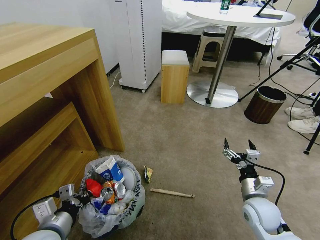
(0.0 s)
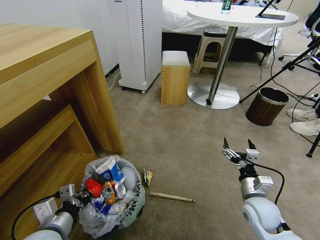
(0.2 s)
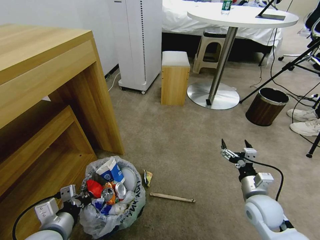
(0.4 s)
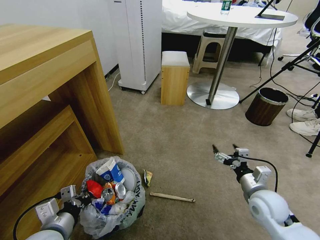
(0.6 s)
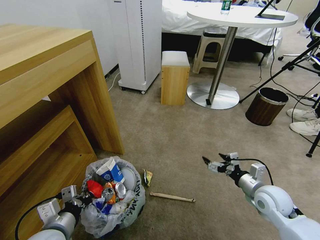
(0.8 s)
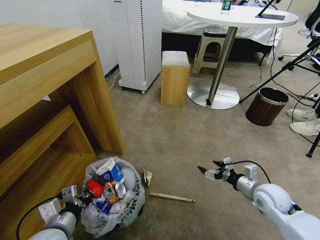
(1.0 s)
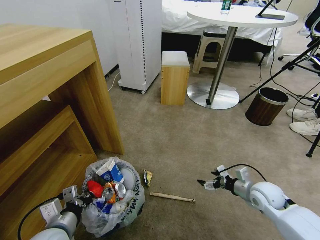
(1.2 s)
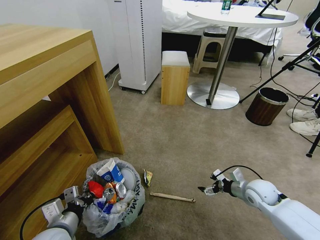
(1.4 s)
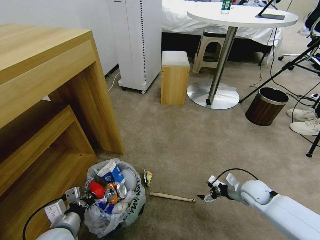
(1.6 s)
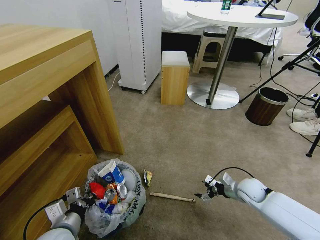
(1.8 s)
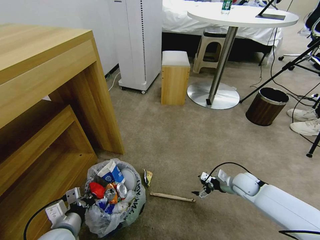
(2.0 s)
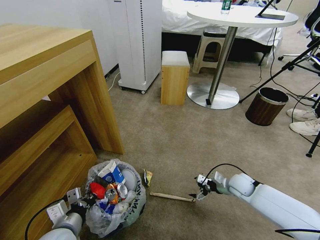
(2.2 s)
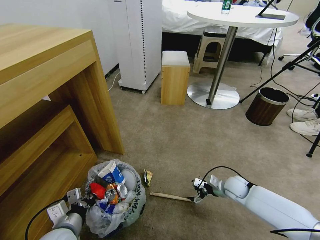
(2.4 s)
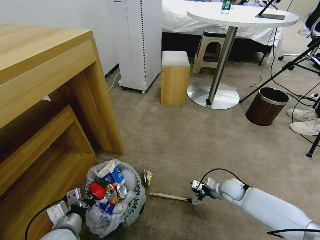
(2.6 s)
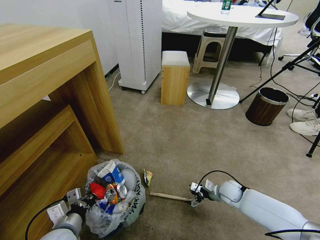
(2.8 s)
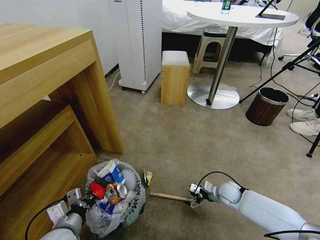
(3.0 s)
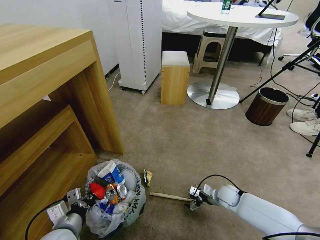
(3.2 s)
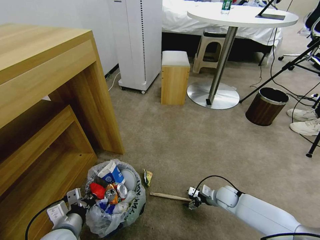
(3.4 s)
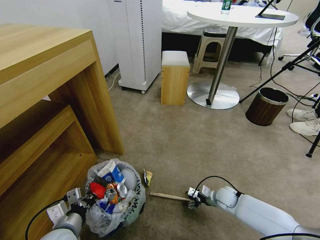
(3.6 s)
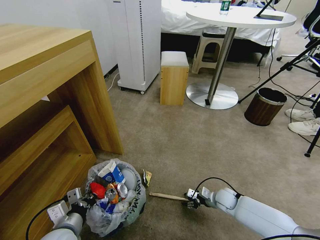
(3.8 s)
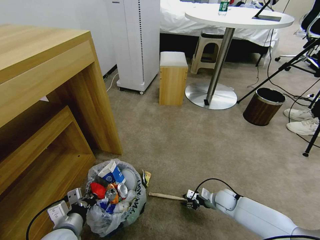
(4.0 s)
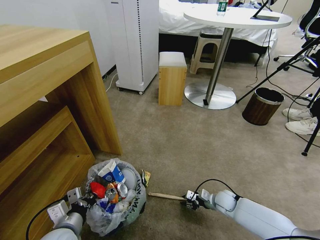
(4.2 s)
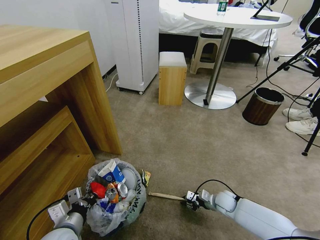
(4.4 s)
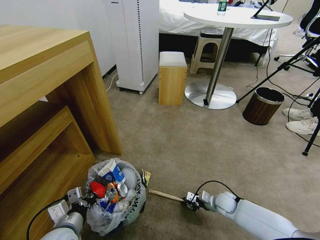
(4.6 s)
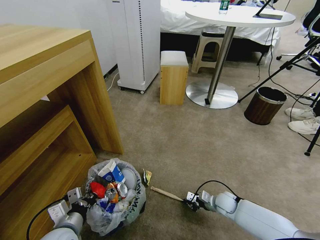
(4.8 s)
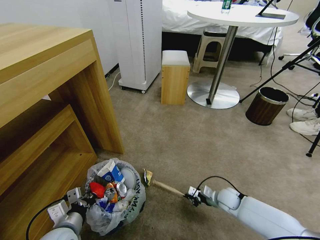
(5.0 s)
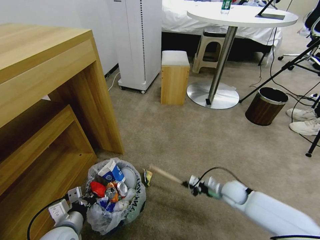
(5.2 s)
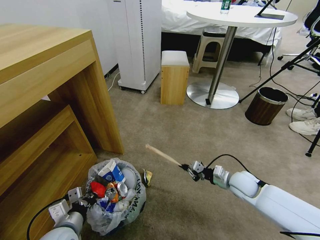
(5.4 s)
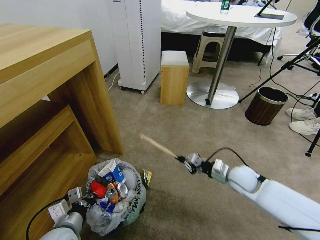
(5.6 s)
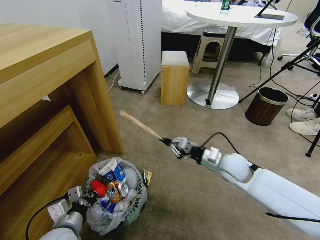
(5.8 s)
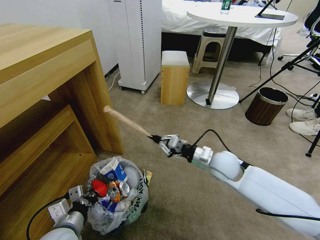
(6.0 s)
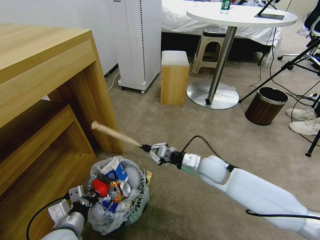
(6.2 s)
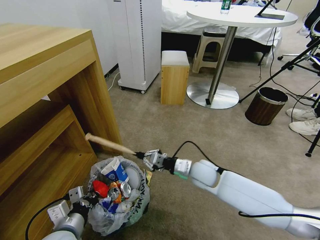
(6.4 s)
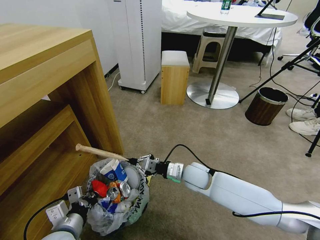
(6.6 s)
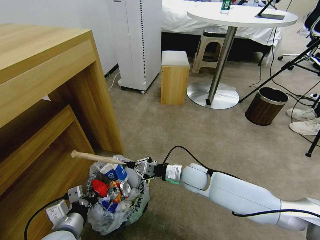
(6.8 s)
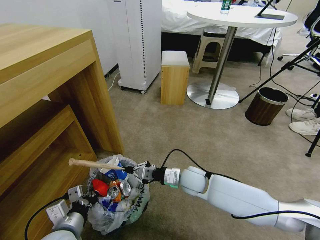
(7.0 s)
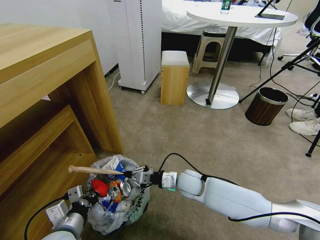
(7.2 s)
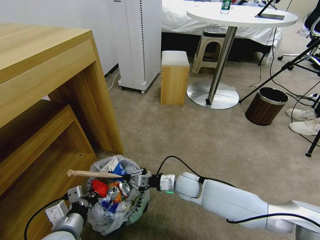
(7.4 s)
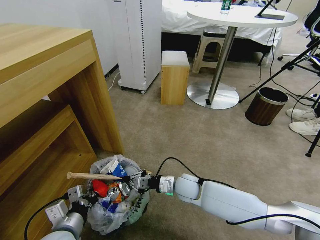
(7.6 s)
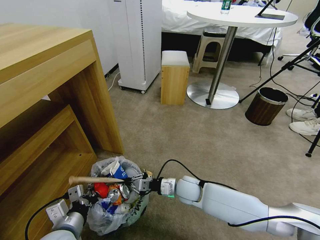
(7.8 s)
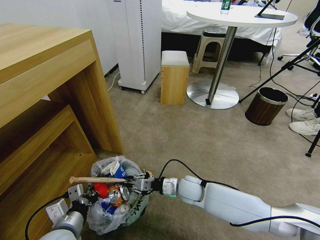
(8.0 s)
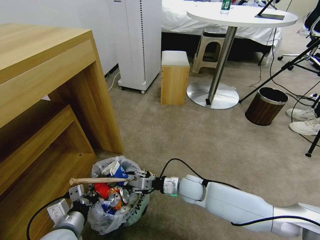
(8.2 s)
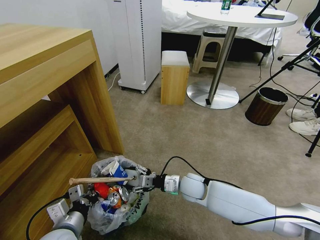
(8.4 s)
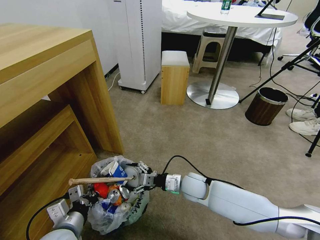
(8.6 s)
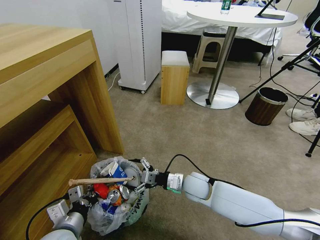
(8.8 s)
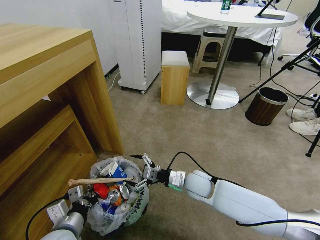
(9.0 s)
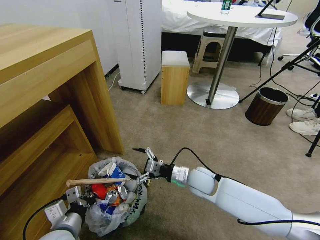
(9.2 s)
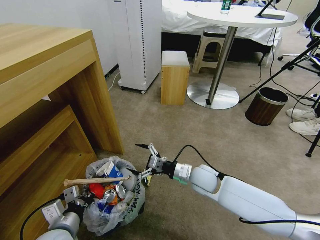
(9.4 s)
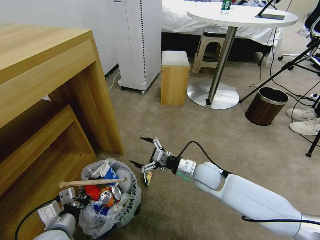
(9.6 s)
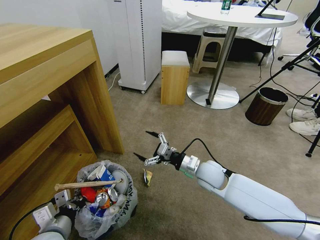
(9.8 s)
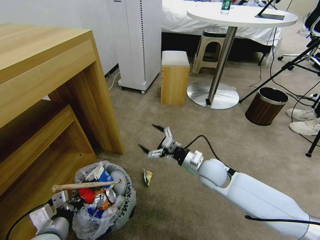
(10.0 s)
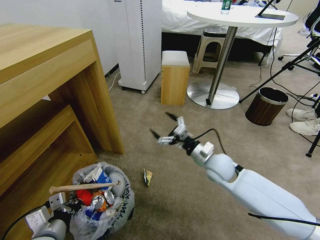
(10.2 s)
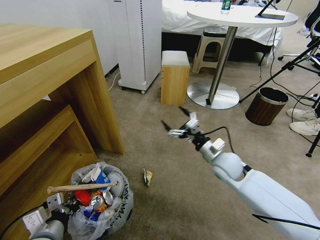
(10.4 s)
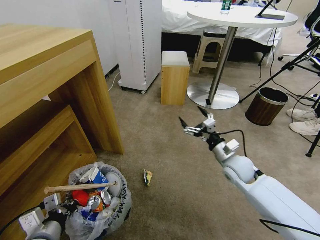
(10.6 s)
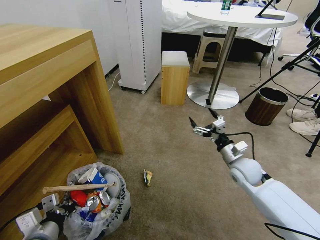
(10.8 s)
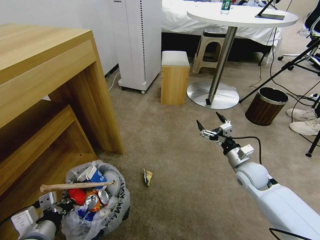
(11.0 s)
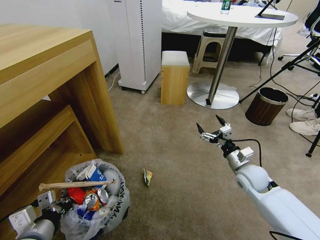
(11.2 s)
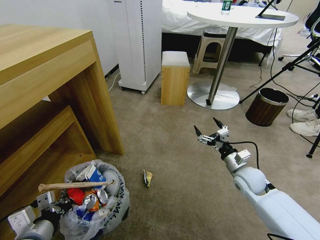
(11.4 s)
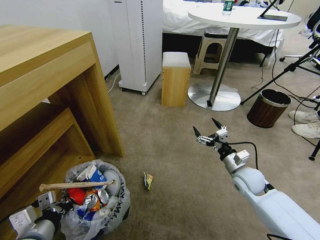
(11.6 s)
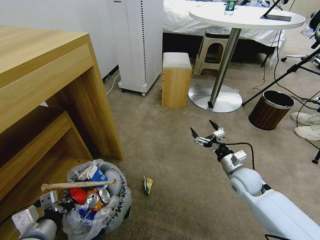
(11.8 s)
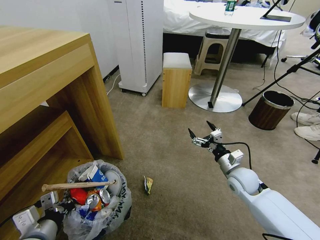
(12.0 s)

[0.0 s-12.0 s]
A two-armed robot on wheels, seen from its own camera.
Task of the whole recording: Pick up the trash bin and place the garbage on the floor into it.
0.0 to 1.6 s: The right gripper travels forward, downward and to the right by approximately 10 cm.
1.6 to 3.0 s: The right gripper is displaced downward and to the left by approximately 10 cm.
3.0 to 4.4 s: The right gripper closes.
4.4 to 6.0 s: The right gripper shifts some 25 cm upward.
6.0 to 7.6 s: The right gripper travels downward and to the left by approximately 15 cm.
7.6 to 9.0 s: The right gripper shifts by about 5 cm, and opens up.
9.0 to 10.4 s: The right gripper moves to the right and upward, about 10 cm.
10.4 to 12.0 s: The right gripper moves to the right and downward, some 10 cm.

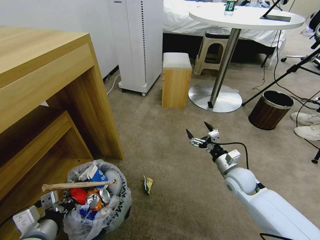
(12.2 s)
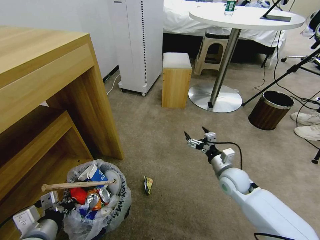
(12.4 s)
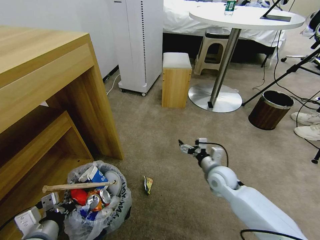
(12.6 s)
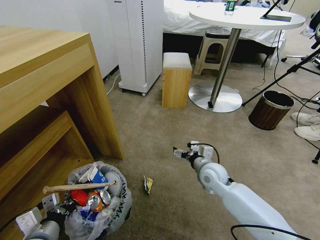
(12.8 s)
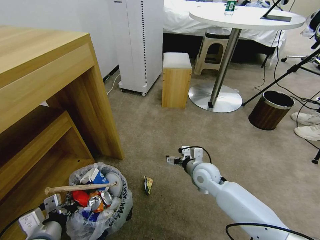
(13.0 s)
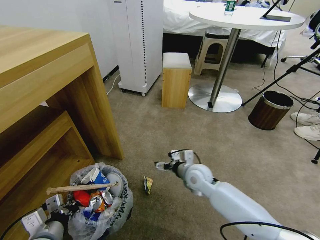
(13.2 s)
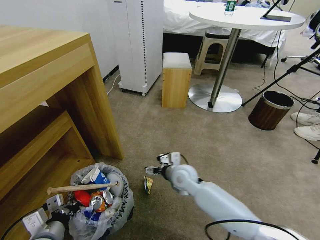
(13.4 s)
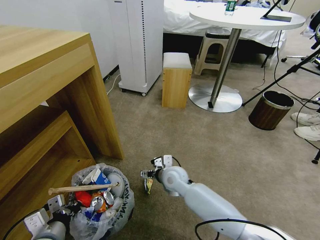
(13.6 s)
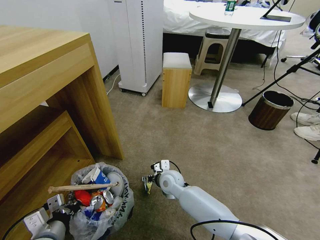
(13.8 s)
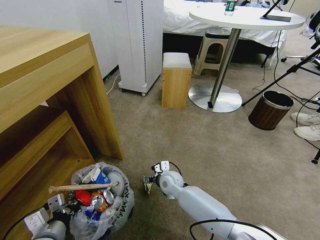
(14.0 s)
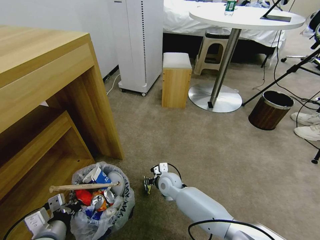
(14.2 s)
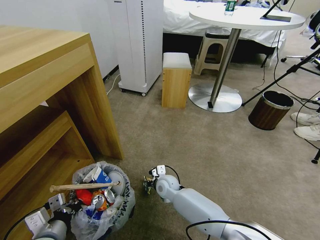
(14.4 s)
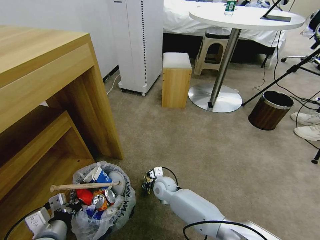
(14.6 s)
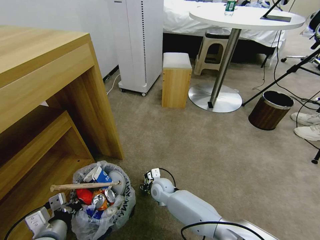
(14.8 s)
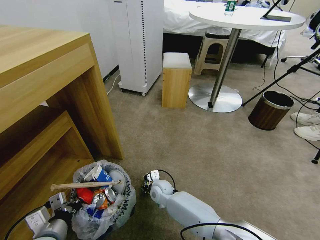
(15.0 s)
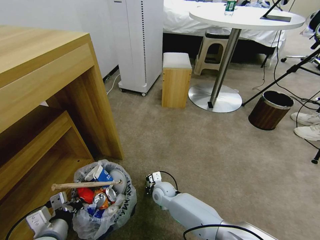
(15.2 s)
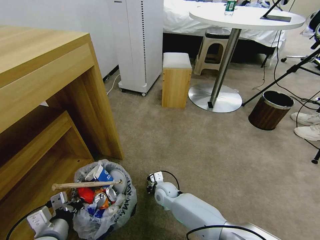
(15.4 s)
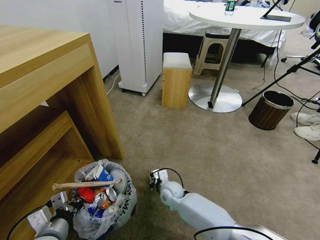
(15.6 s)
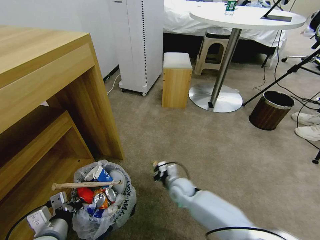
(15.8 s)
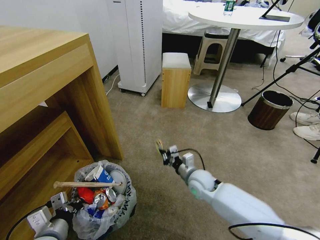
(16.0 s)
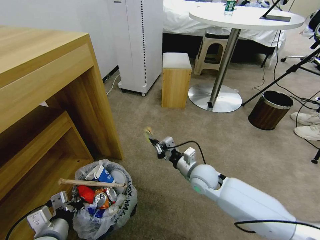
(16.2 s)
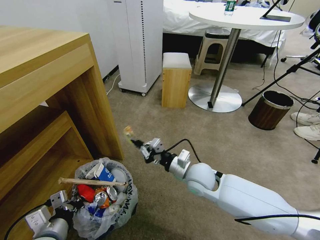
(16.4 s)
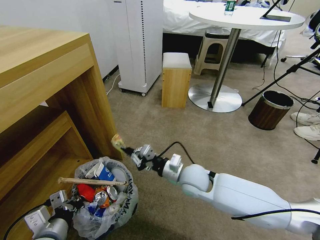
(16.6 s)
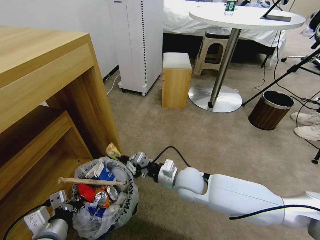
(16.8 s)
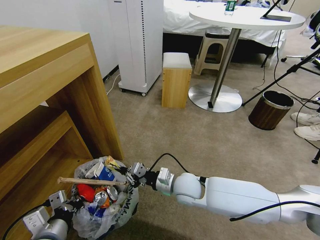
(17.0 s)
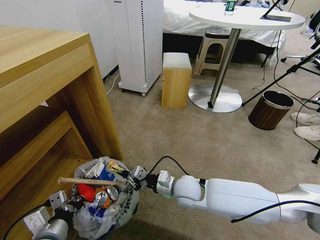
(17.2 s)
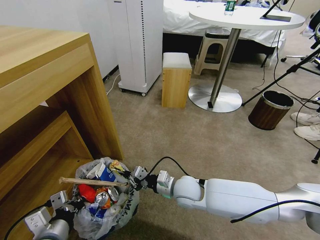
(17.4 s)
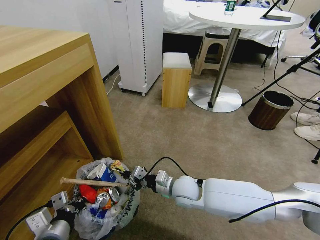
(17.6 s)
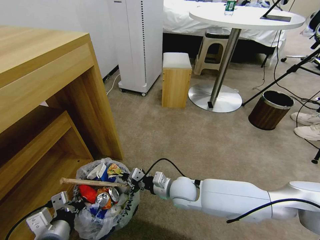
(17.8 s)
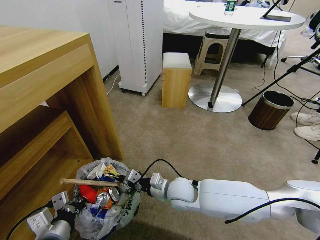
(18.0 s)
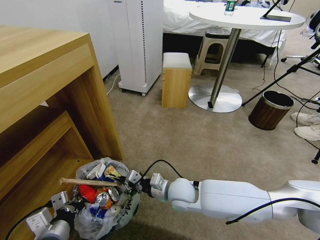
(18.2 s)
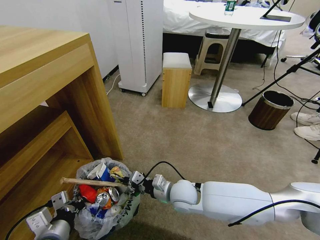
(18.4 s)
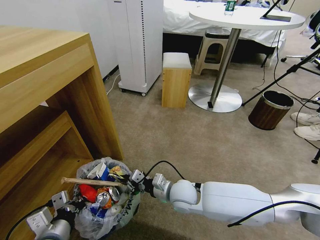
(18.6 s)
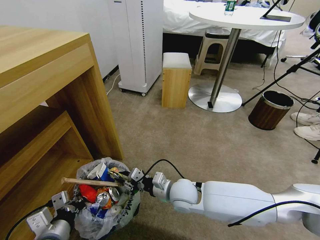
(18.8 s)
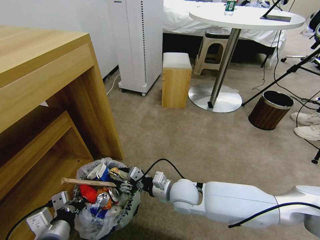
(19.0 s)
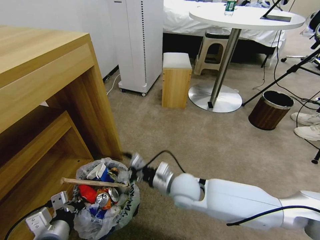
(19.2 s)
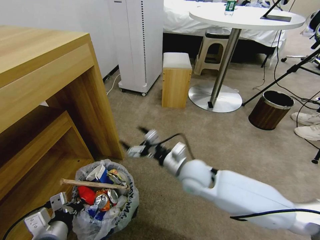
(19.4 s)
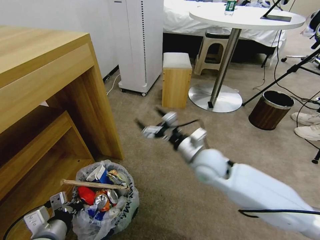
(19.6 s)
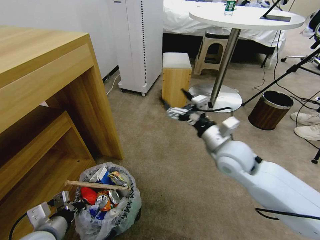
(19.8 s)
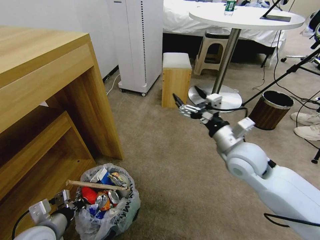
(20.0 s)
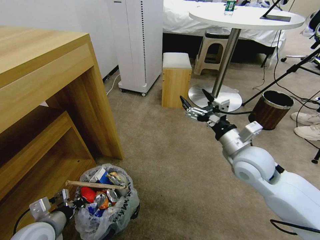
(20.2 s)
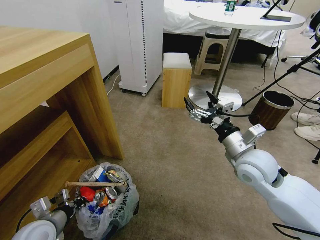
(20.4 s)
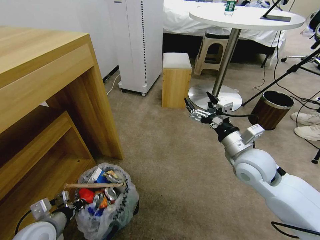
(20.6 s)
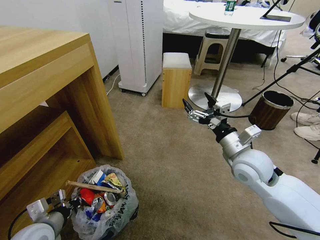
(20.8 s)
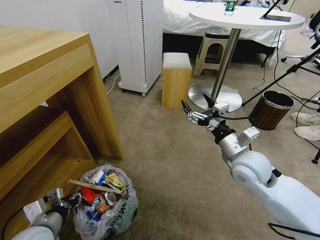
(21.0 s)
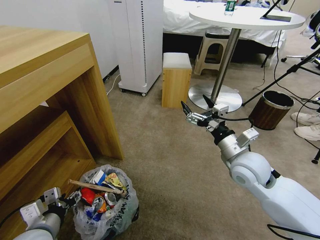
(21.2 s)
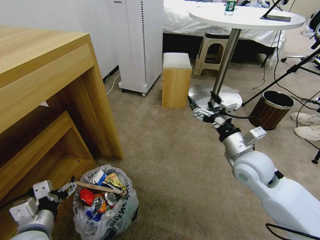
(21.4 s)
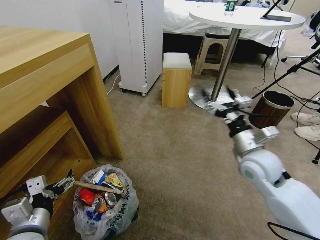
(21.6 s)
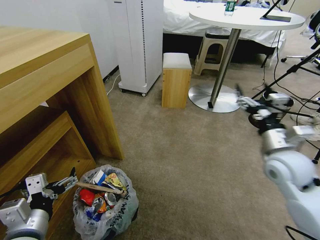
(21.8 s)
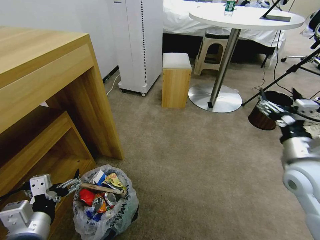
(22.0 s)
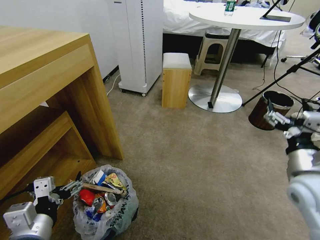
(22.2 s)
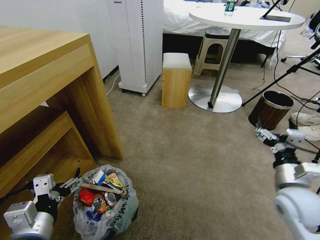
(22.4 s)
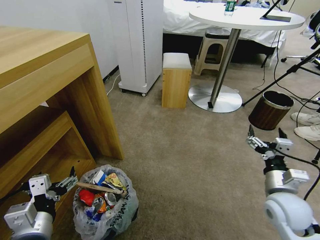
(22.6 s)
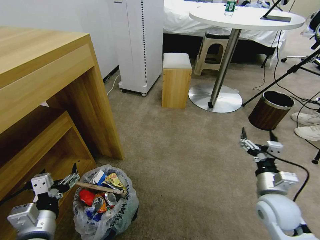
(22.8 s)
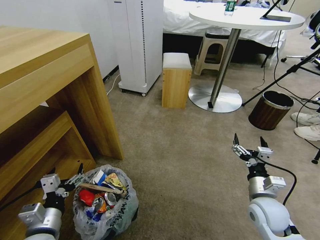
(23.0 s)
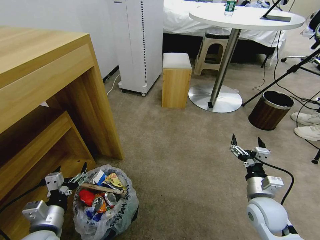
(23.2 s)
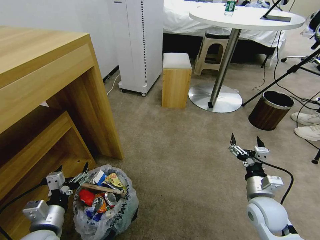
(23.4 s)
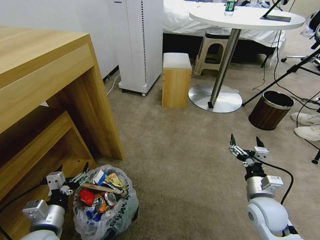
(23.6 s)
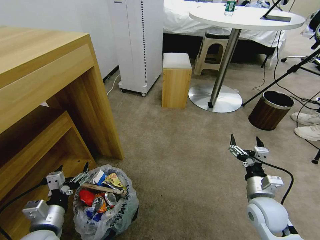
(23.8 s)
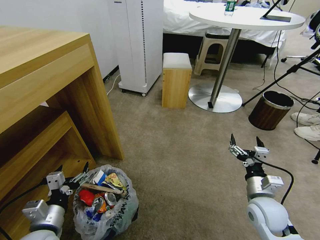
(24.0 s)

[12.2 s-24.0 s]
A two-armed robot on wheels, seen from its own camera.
Task of the whole recording: Pick up the trash bin and place the garbage on the floor into it.
12.2 to 13.6 s: The right gripper shifts roughly 25 cm to the left.
13.6 to 15.2 s: The right gripper shifts about 10 cm downward, and closes its fingers.
15.2 to 16.6 s: The right gripper travels upward and to the right by approximately 20 cm.
16.6 to 18.2 s: The right gripper travels downward by about 5 cm.
18.2 to 19.6 s: The right gripper is displaced upward and to the right by approximately 15 cm, and opens.
19.6 to 21.0 s: The right gripper is displaced to the right by approximately 10 cm; the left gripper opens.
21.0 to 22.6 s: The left gripper travels upward by approximately 5 cm, and opens its fingers. The right gripper moves to the right, backward and downward, roughly 15 cm.
22.6 to 24.0 s: The right gripper heads downward, covering roughly 5 cm. Meanwhile the left gripper travels downward by about 10 cm.
